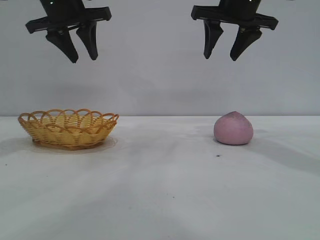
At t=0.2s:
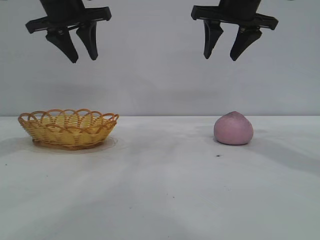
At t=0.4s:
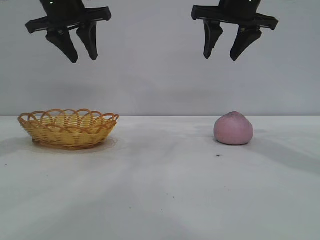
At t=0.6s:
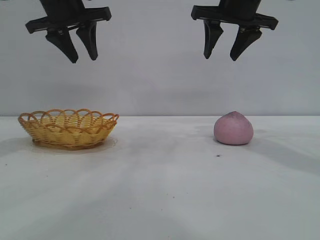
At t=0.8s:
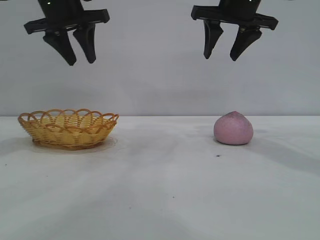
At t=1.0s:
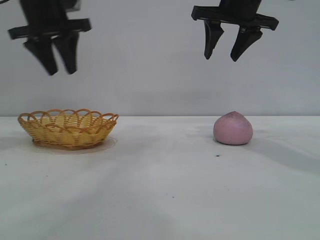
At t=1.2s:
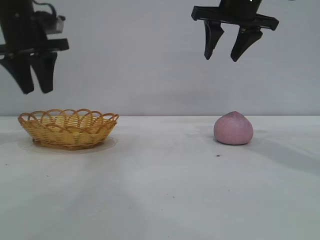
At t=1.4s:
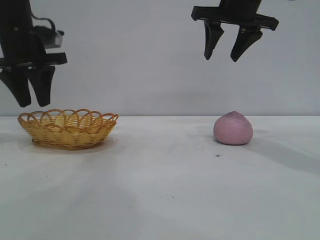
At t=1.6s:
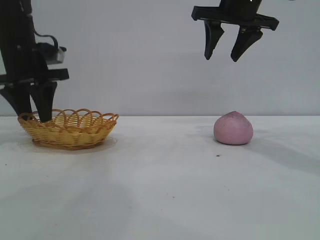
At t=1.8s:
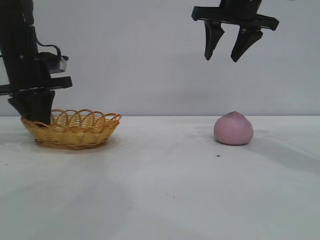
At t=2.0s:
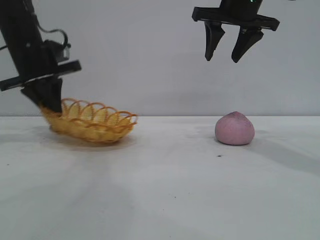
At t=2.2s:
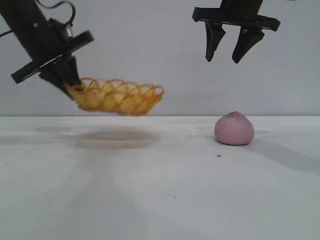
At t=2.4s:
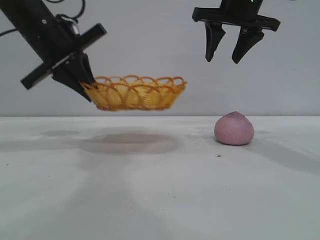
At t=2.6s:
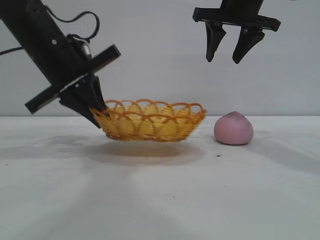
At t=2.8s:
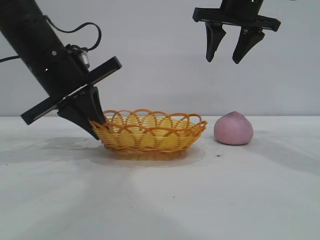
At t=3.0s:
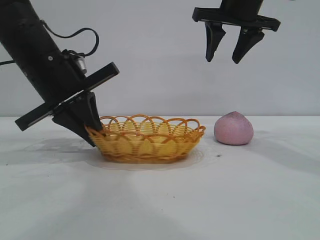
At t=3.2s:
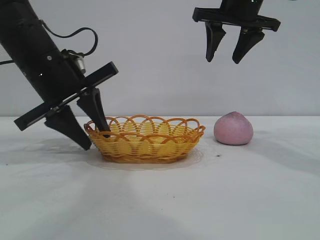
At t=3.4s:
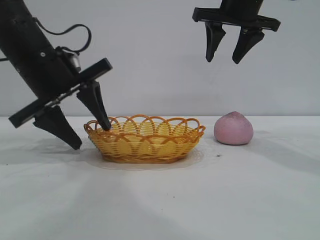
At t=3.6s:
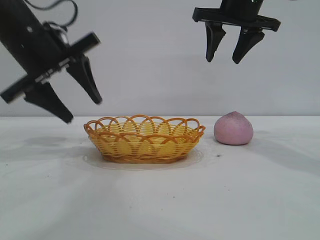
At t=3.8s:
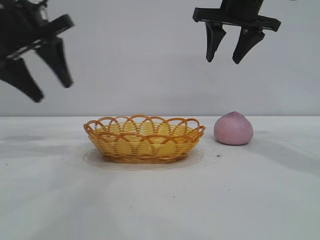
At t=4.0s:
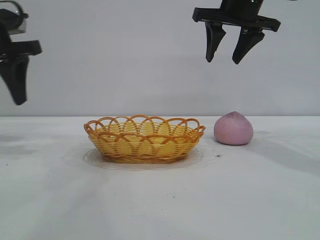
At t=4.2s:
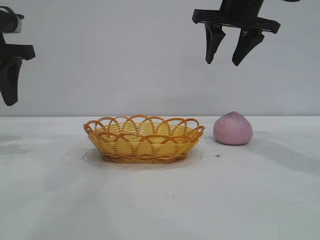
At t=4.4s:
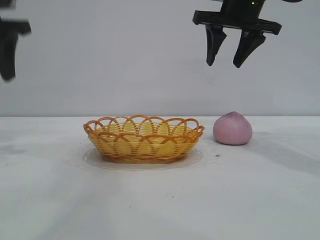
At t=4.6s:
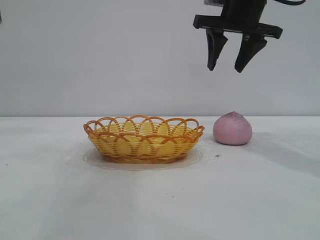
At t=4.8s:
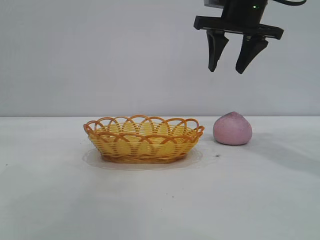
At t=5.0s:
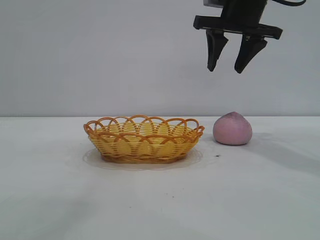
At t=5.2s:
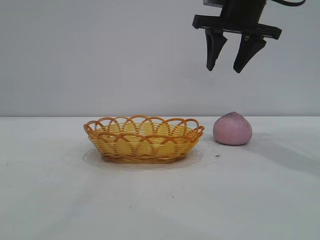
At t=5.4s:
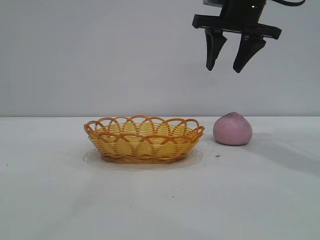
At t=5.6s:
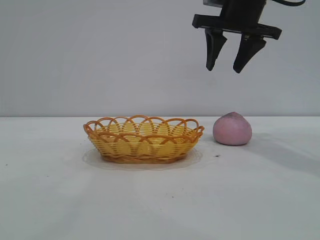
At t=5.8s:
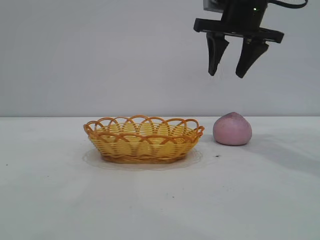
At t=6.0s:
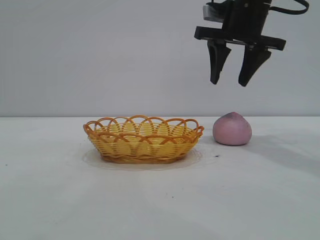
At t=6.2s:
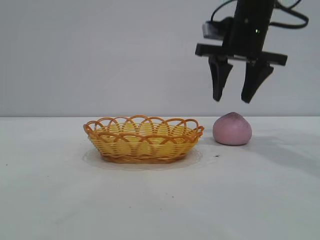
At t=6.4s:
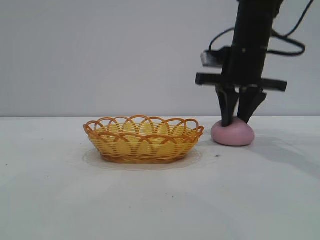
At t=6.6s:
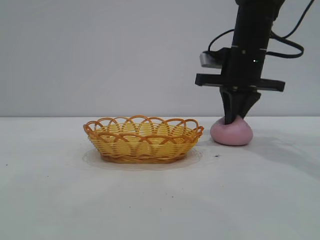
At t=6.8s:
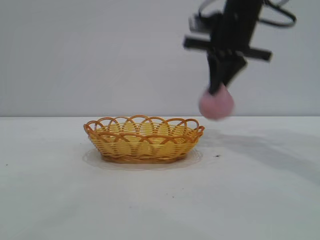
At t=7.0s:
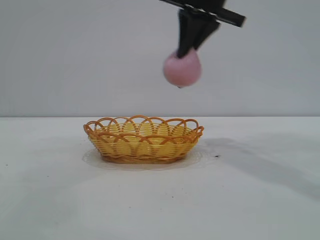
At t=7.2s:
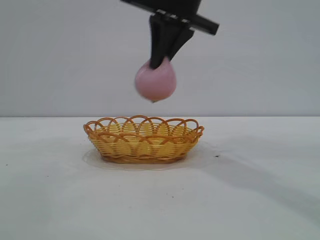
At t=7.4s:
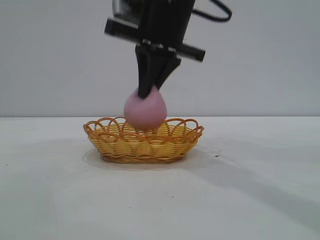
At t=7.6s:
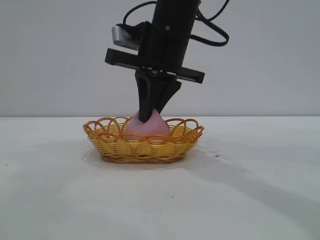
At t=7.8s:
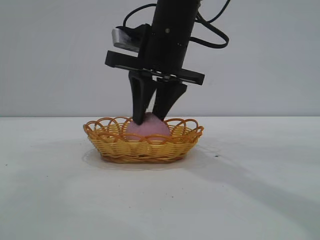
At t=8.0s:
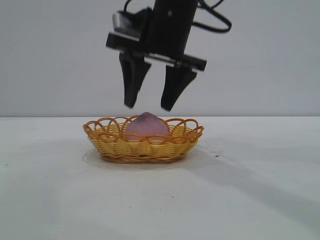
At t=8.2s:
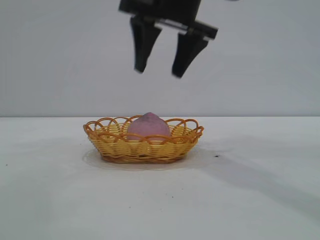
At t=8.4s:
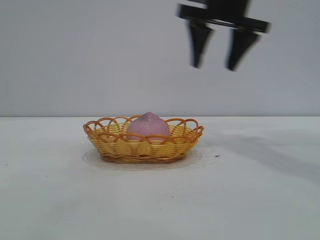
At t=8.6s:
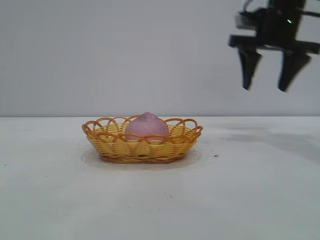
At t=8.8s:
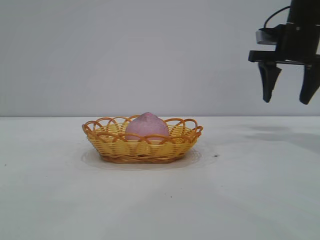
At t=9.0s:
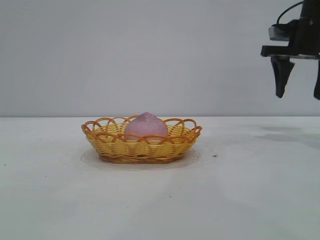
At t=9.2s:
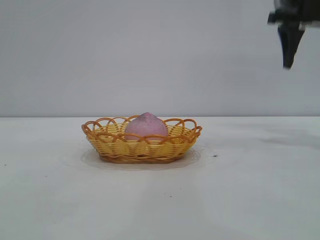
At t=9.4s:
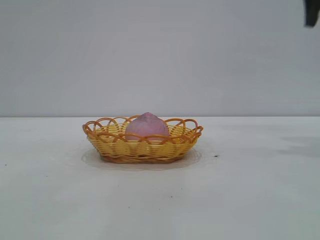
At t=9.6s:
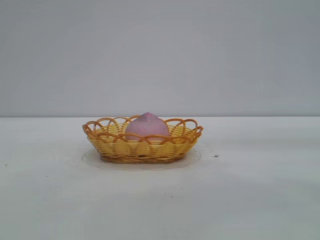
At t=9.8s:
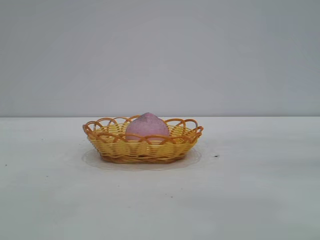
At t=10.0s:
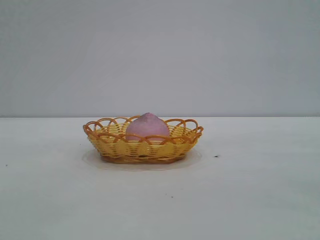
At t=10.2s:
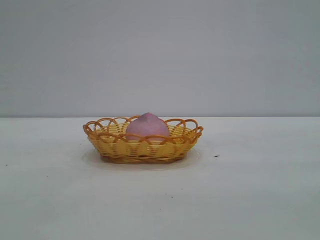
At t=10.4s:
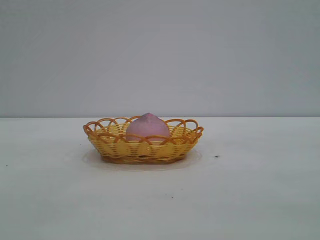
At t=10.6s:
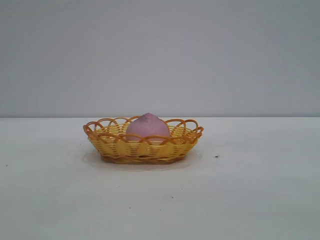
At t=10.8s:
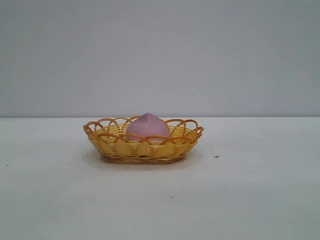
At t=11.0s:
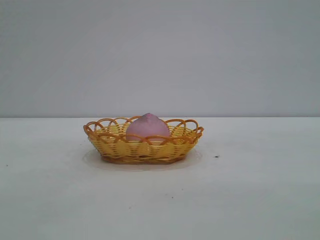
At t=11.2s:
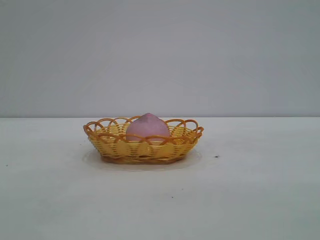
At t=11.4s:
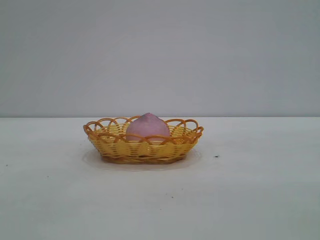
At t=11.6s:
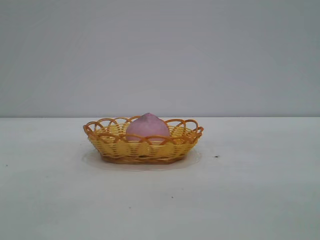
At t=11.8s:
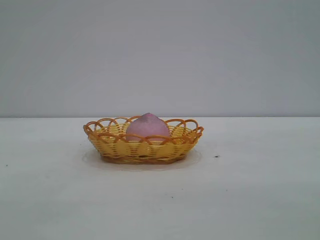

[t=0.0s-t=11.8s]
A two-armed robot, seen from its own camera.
Task of the whole recording: pick up the peach and put it into the basket.
Step, t=0.0s to t=3.6s: Move the basket to the center of view.
Step, t=3.8s to t=6.6s: Pick up the peach.
Step, t=6.8s to t=8.0s: place the peach into the basket.

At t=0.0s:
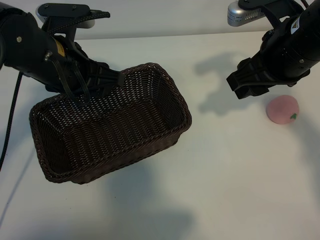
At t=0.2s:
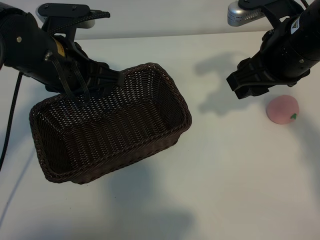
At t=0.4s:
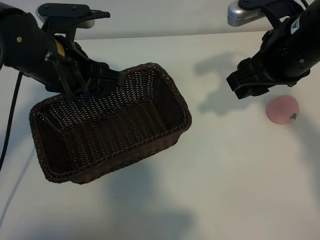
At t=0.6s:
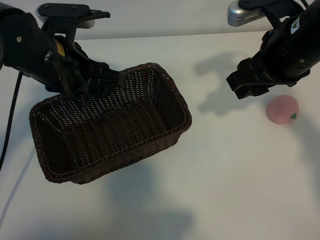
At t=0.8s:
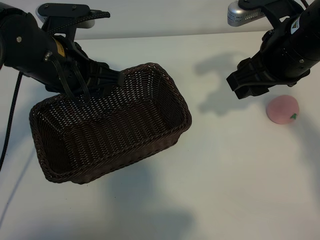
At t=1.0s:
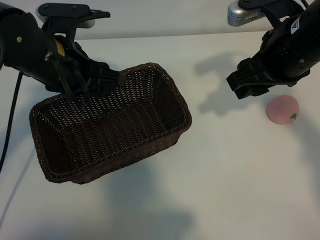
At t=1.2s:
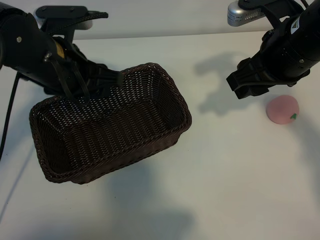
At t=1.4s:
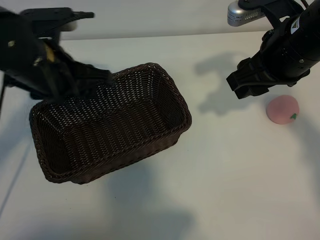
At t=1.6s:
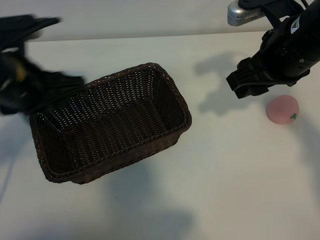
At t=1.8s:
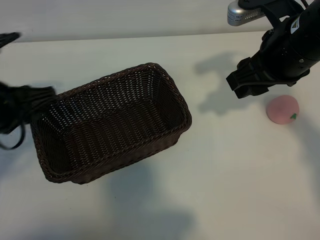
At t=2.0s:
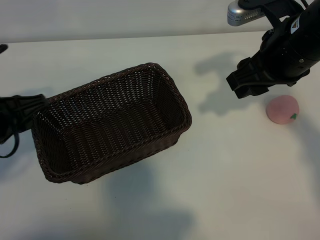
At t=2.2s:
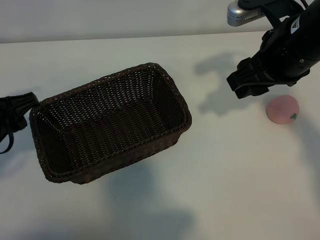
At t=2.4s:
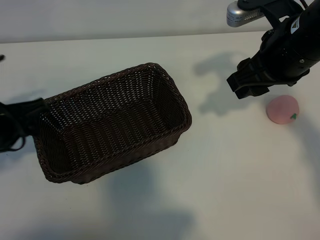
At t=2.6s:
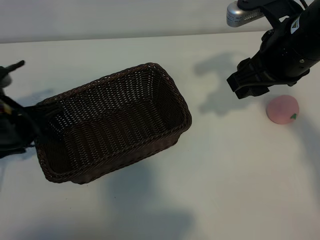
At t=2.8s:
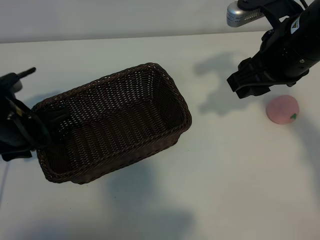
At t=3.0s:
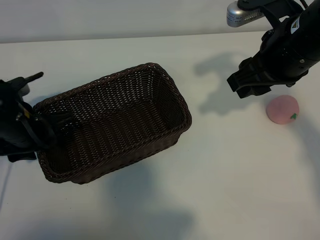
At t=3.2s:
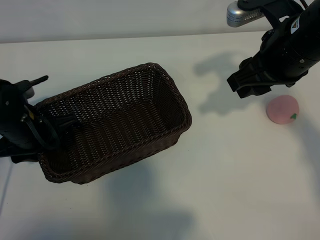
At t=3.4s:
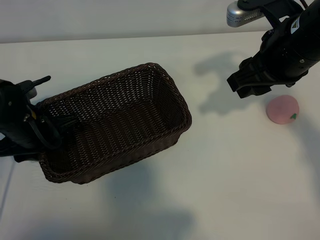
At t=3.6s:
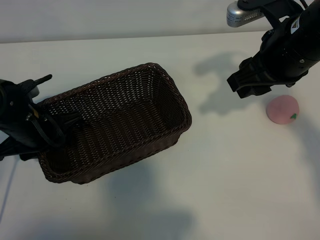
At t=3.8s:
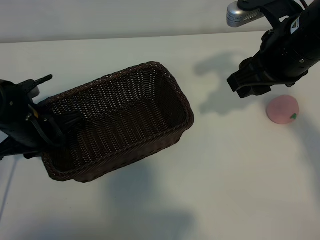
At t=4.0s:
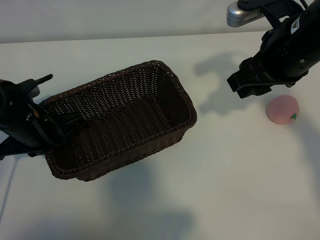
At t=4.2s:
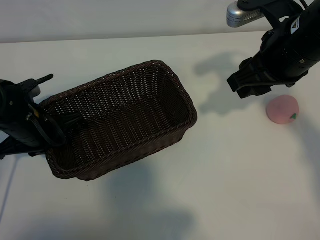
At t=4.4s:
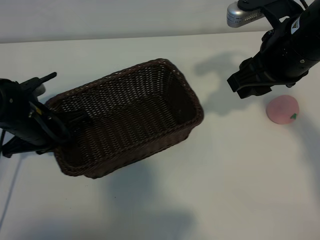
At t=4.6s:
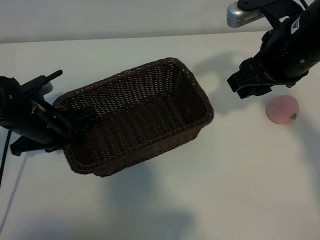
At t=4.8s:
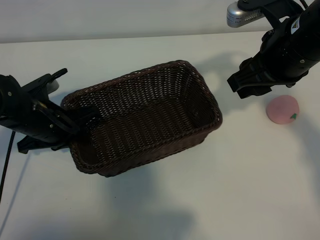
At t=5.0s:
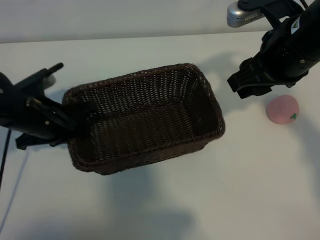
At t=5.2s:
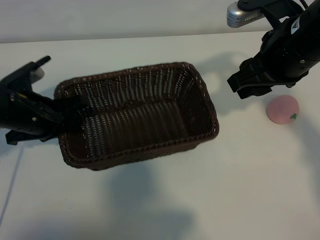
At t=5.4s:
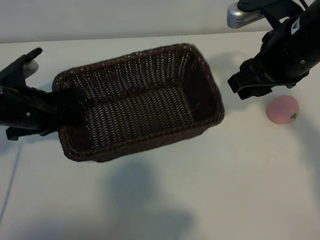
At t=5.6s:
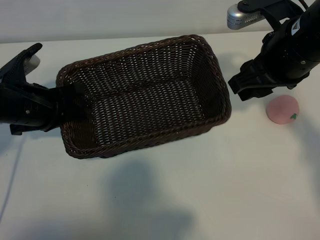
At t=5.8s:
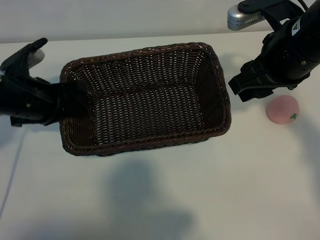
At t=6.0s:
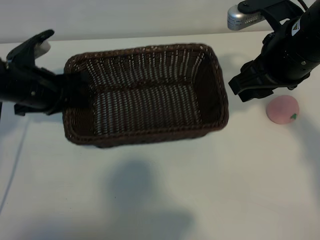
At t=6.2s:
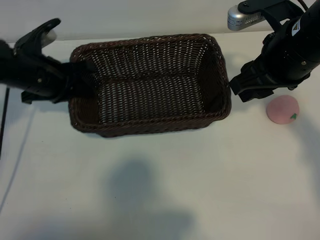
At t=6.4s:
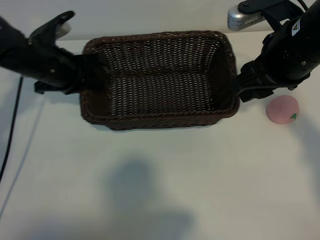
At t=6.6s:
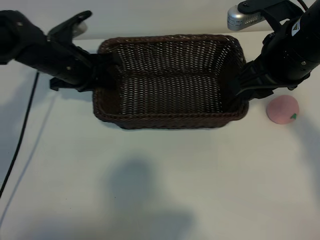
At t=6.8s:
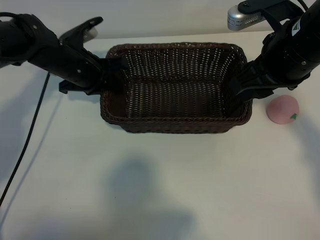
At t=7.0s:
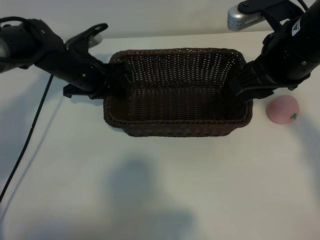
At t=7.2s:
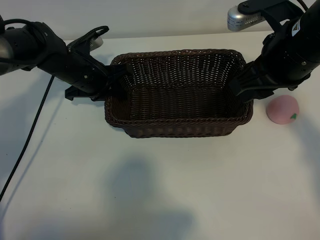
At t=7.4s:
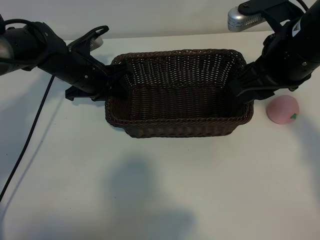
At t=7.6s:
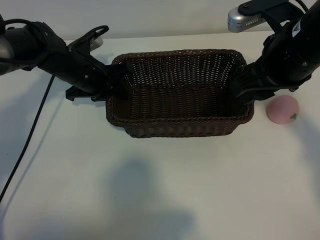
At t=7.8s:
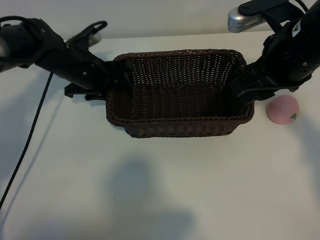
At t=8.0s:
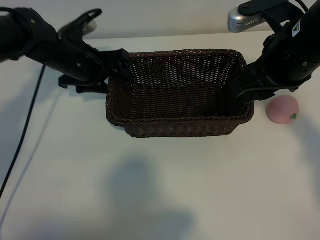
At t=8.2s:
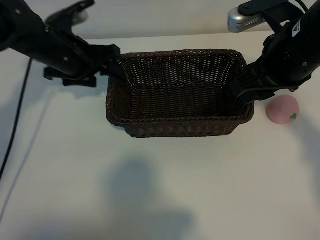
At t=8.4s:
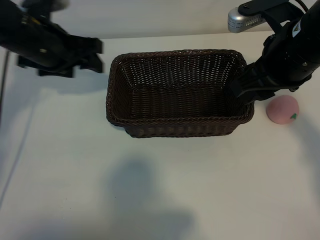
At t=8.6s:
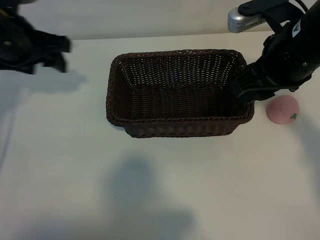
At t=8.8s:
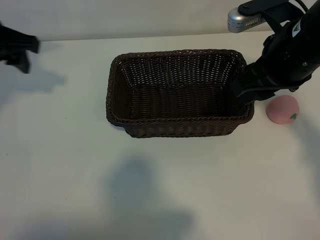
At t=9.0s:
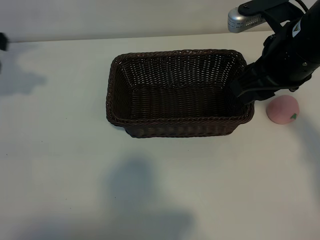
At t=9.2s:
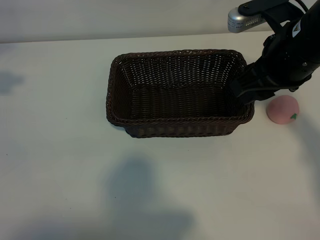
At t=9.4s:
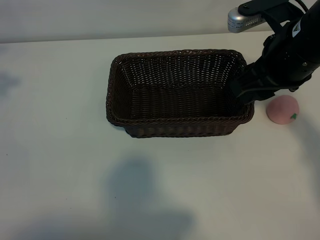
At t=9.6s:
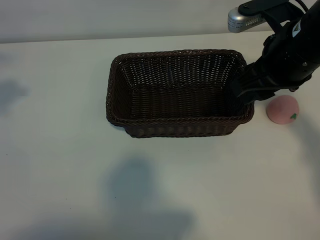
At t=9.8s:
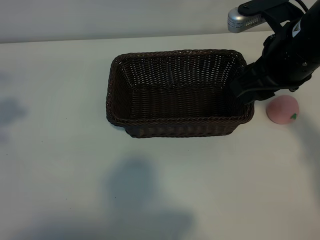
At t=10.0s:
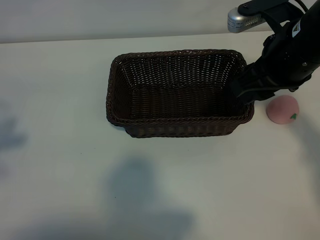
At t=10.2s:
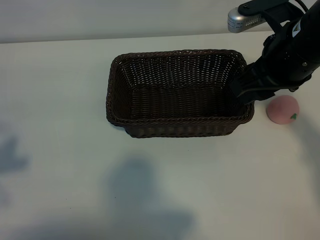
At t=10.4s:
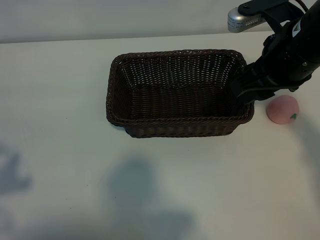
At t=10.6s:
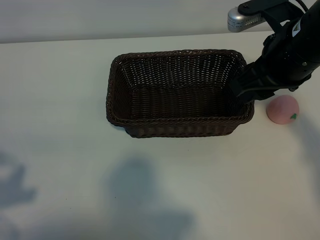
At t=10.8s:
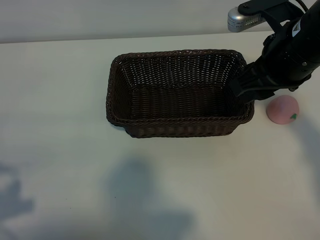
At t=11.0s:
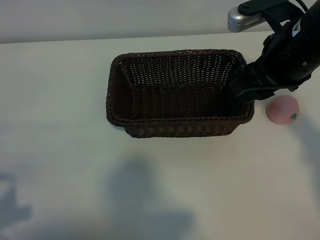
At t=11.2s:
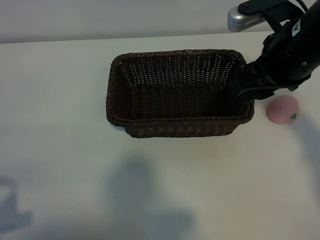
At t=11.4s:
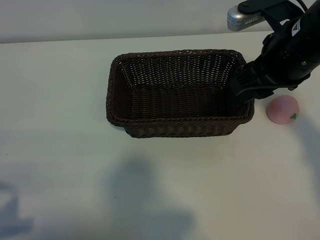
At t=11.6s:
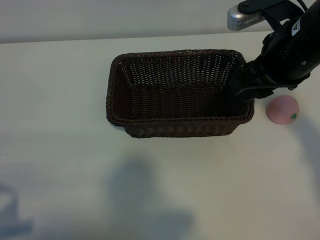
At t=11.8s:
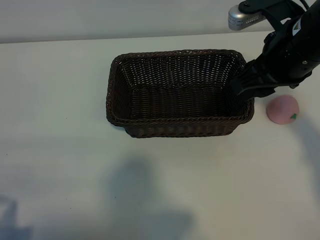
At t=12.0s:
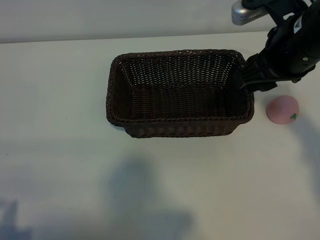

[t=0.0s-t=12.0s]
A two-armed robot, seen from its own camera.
Task of the whole recording: pick up the peach and put it into the basket.
Step, t=1.2s to t=4.2s: Grasp the basket with left gripper.
Step, t=4.6s to t=8.0s: Place the basket in the center of view with left gripper.
